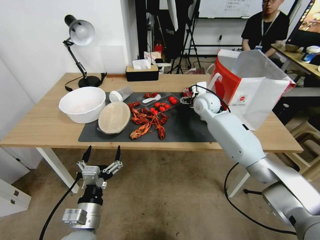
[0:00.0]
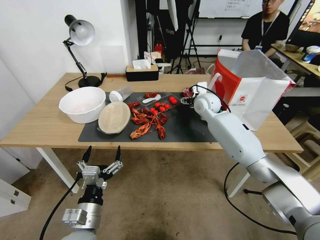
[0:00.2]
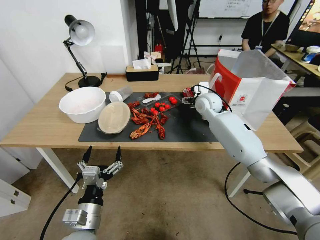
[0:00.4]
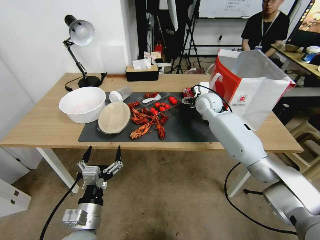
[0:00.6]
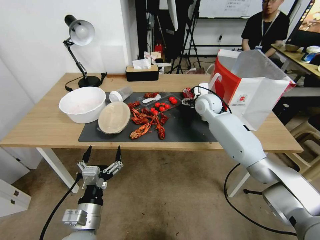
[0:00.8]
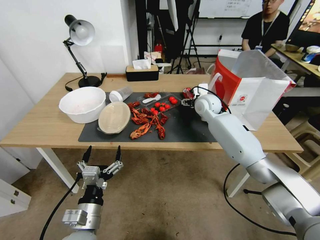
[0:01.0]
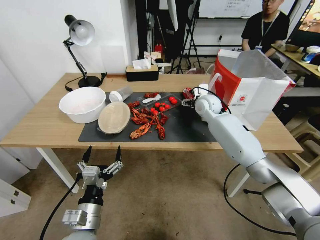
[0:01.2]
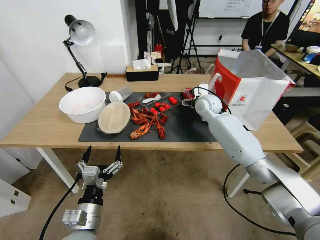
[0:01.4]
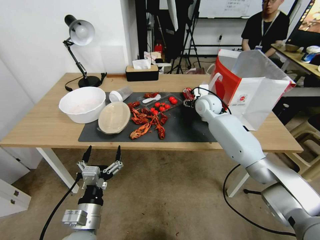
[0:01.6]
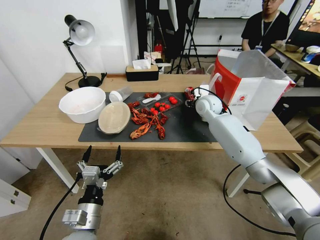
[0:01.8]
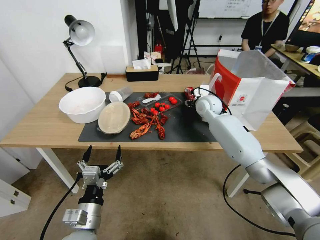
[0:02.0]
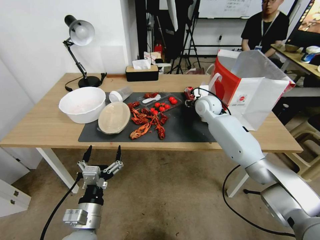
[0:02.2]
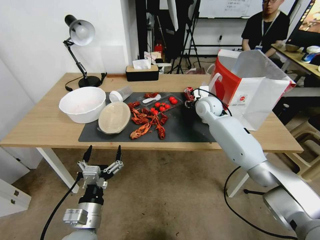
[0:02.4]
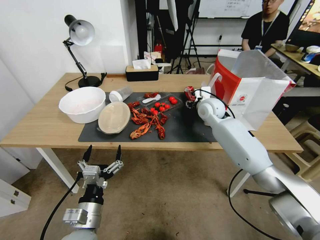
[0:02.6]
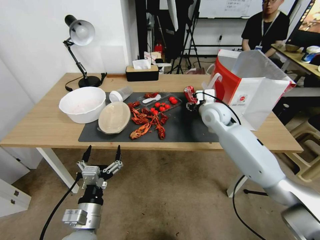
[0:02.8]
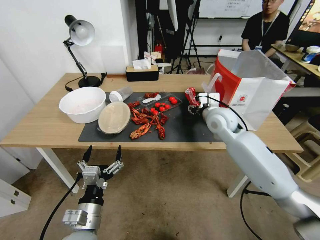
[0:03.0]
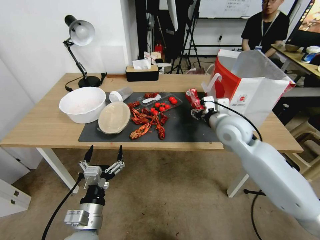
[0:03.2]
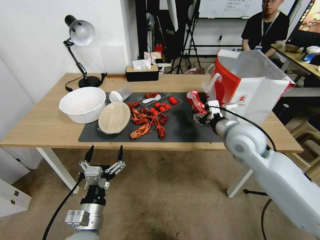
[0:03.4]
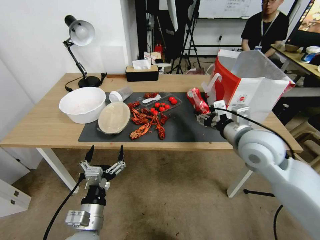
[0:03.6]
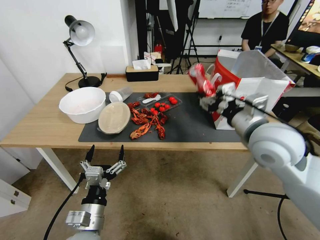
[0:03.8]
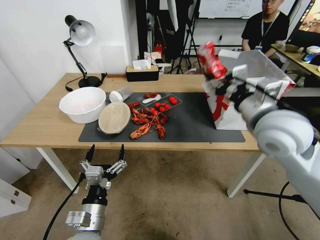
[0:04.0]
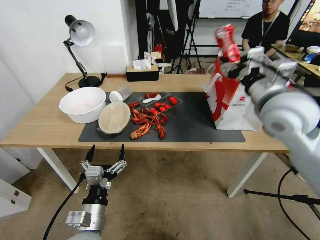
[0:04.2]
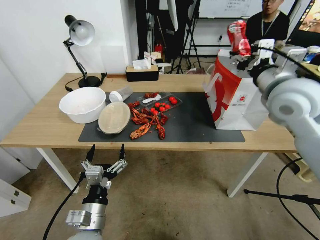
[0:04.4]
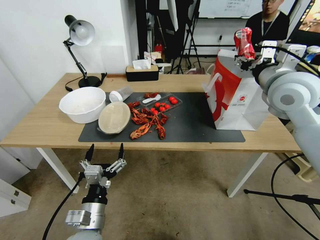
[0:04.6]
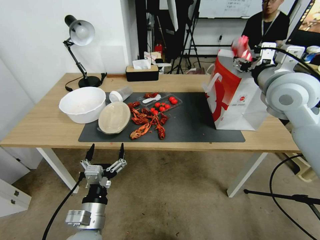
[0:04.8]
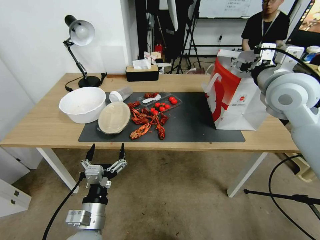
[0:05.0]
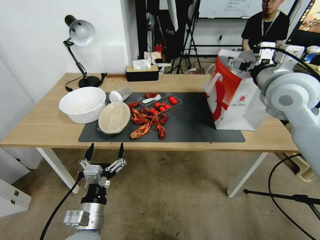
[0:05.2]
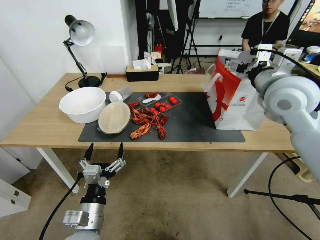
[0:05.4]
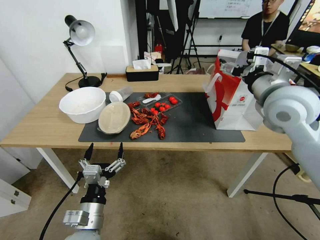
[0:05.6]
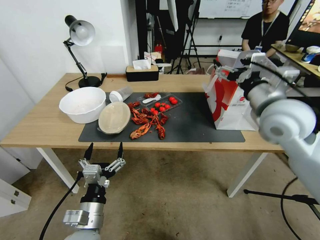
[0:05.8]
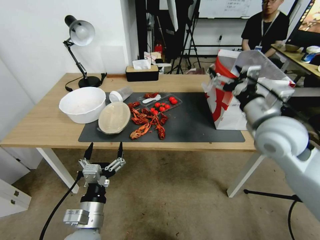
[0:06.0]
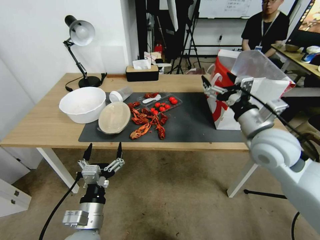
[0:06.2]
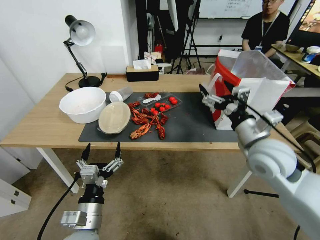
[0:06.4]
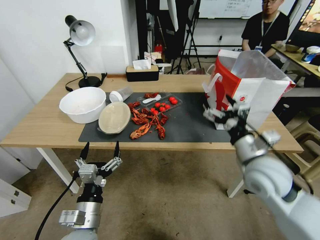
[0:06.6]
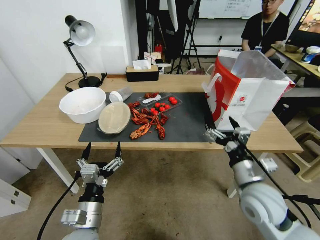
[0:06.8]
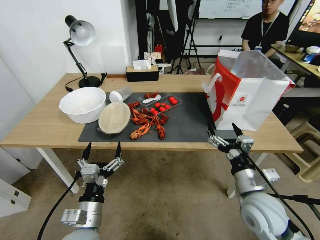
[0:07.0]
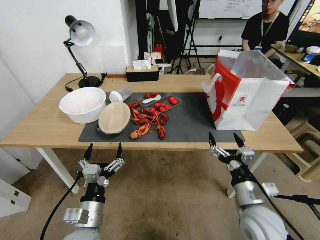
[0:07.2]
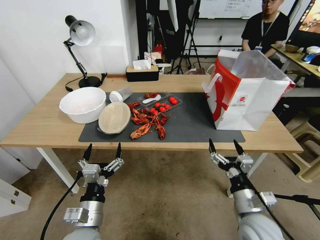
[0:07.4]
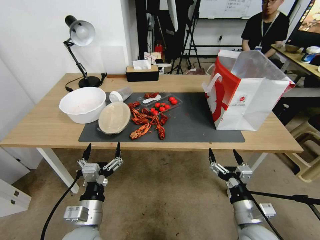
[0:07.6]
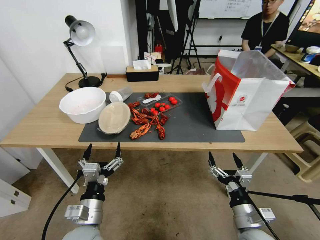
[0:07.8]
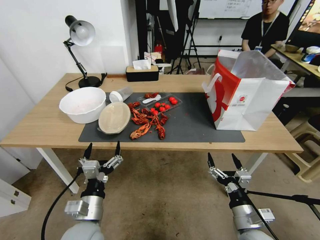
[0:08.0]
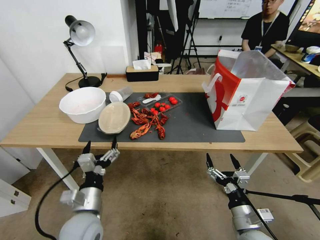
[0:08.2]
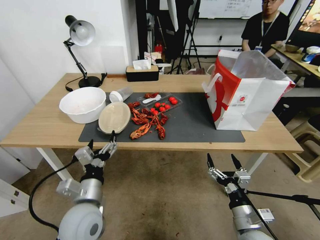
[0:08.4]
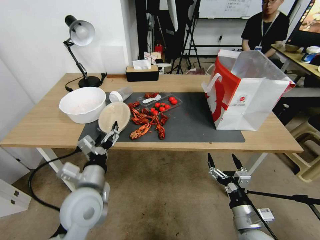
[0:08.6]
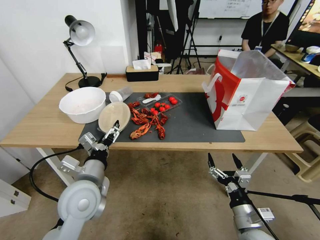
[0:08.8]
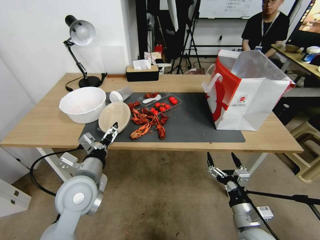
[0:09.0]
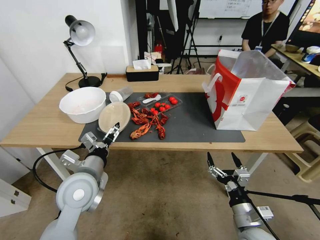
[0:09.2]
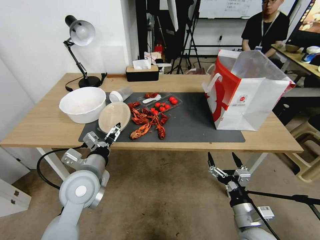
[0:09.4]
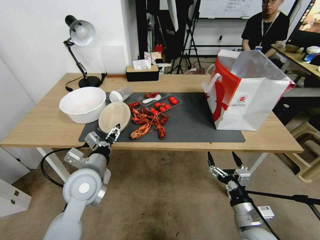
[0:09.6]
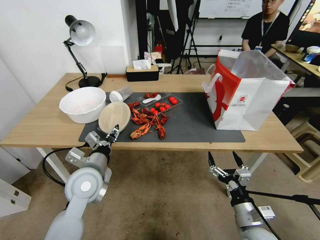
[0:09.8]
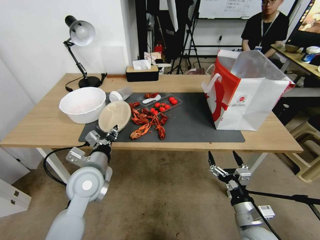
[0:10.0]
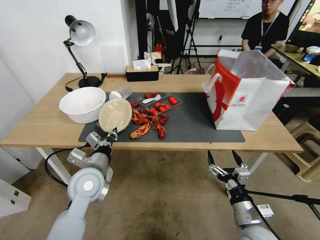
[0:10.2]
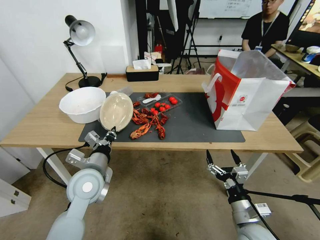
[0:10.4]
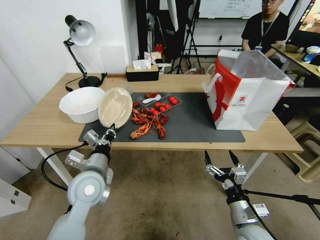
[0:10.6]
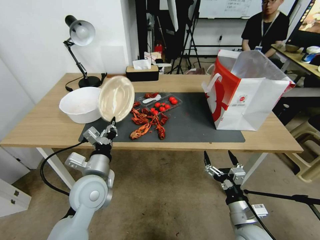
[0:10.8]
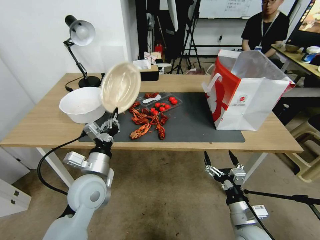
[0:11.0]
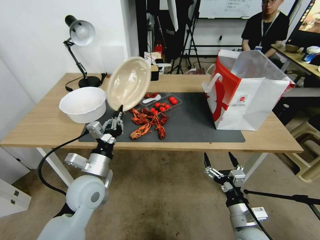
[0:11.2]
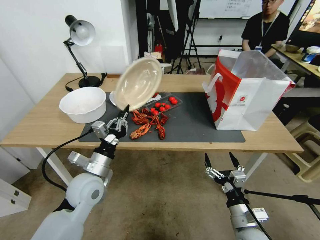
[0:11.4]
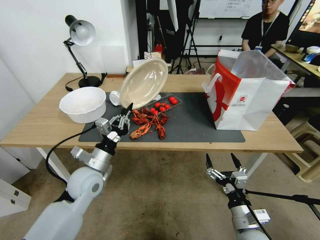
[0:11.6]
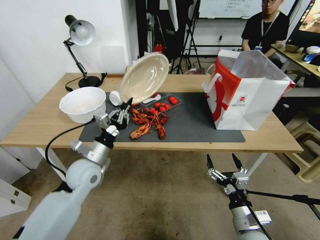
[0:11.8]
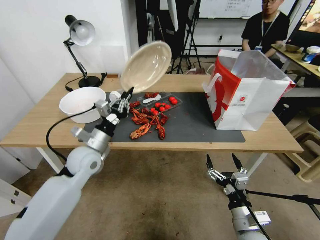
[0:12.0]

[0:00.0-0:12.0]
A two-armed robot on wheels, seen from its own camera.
0:00.0 to 0:01.6: There are only small adjustments of the grippers.
0:01.6 to 0:03.0: The right gripper travels backward by approximately 10 cm.
0:03.0 to 0:04.4: The right gripper shifts about 20 cm upward, to the right and backward.
0:04.4 to 0:06.0: The right gripper moves downward, roughly 10 cm, and opens.
0:06.0 to 0:07.6: The right gripper shifts about 25 cm downward and backward.
0:07.6 to 0:09.0: The right gripper shifts some 5 cm downward; the left gripper goes about 15 cm forward and upward.
0:09.0 to 0:10.4: The left gripper closes up.
0:10.4 to 0:12.0: The left gripper moves forward, about 5 cm.

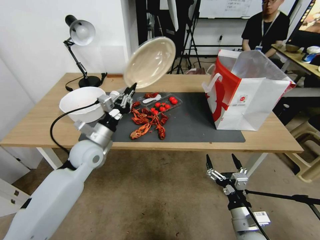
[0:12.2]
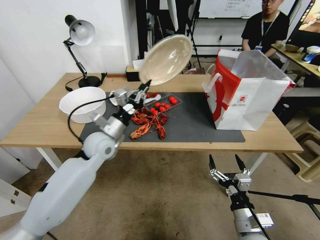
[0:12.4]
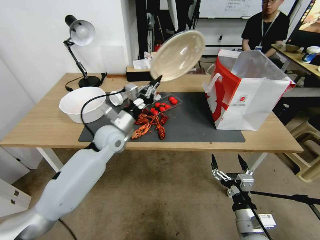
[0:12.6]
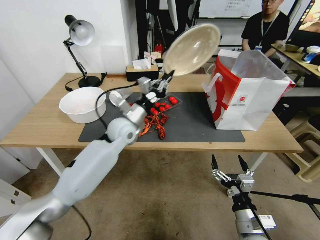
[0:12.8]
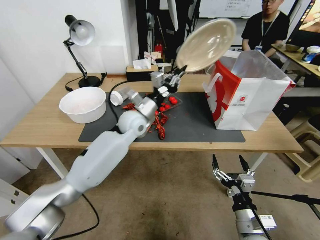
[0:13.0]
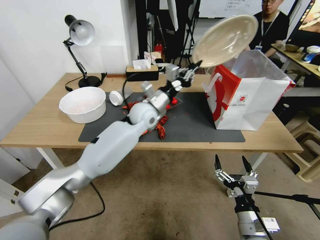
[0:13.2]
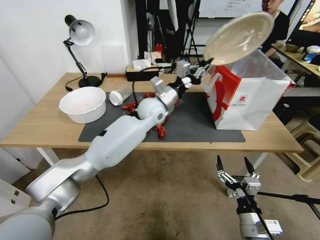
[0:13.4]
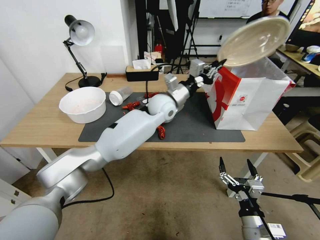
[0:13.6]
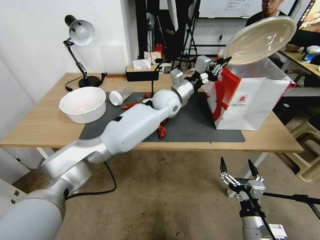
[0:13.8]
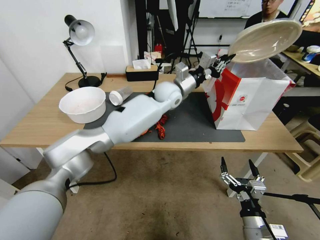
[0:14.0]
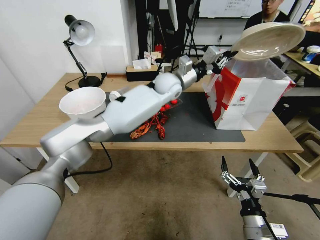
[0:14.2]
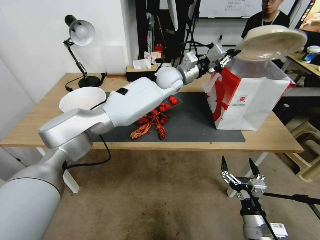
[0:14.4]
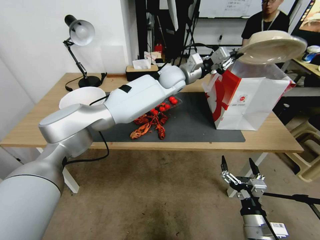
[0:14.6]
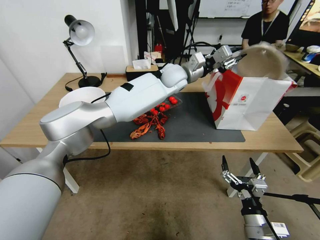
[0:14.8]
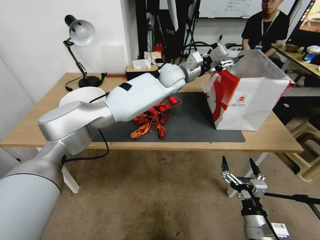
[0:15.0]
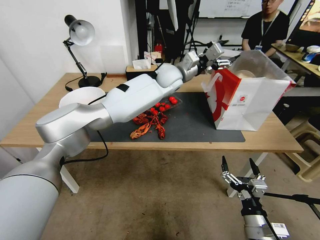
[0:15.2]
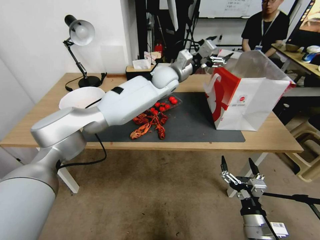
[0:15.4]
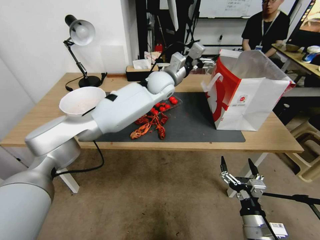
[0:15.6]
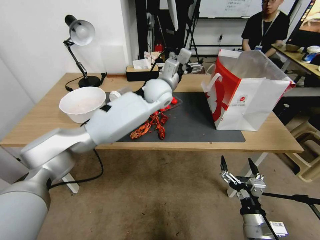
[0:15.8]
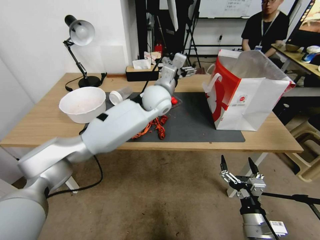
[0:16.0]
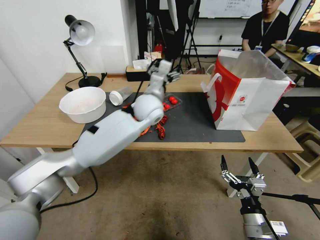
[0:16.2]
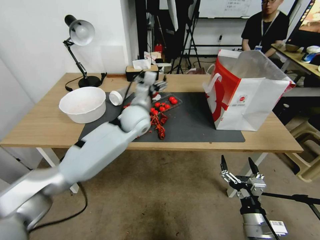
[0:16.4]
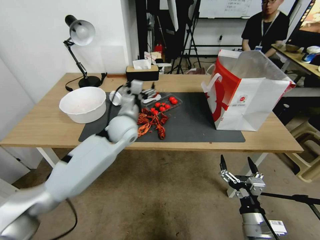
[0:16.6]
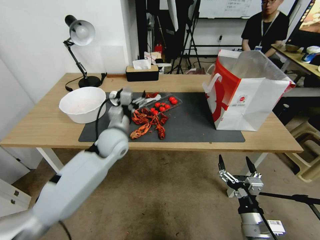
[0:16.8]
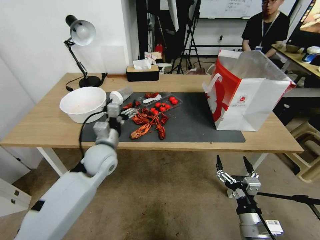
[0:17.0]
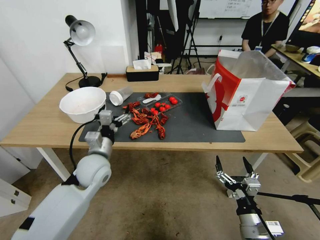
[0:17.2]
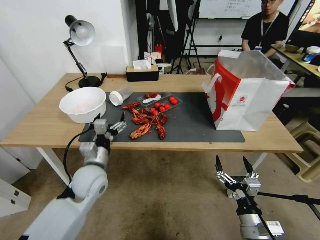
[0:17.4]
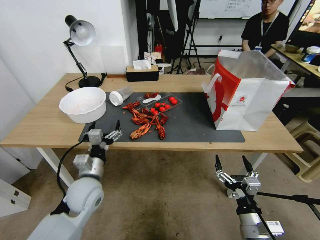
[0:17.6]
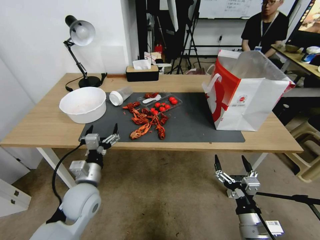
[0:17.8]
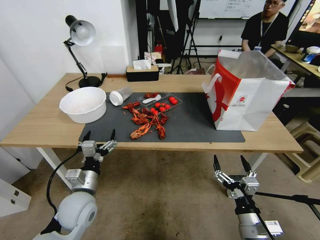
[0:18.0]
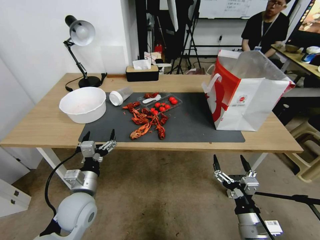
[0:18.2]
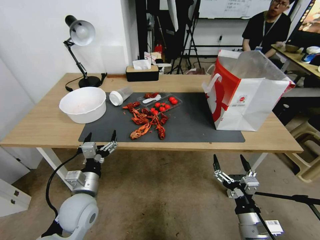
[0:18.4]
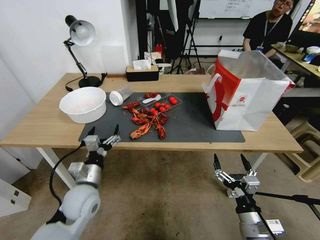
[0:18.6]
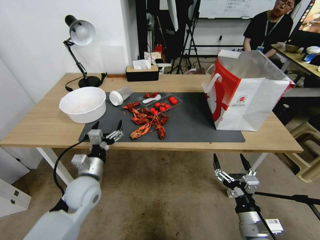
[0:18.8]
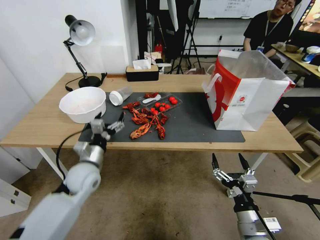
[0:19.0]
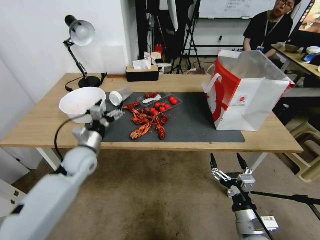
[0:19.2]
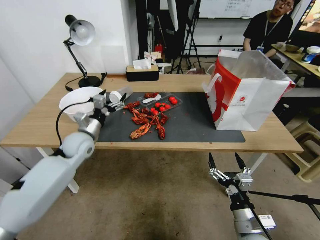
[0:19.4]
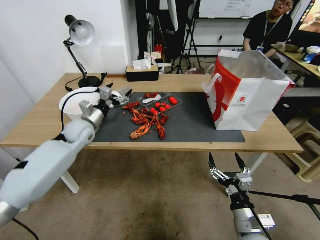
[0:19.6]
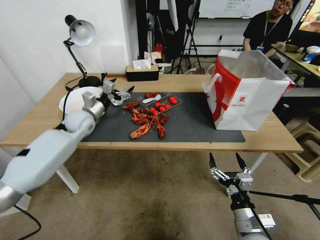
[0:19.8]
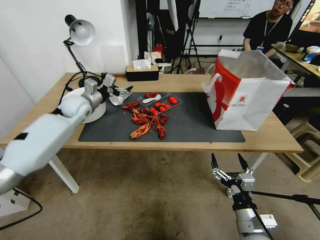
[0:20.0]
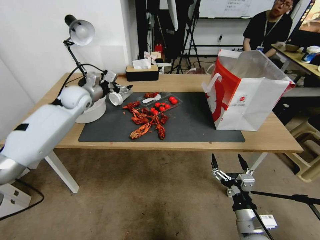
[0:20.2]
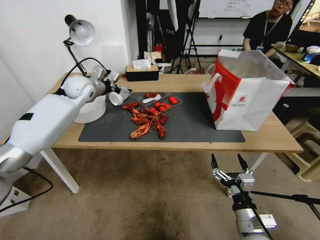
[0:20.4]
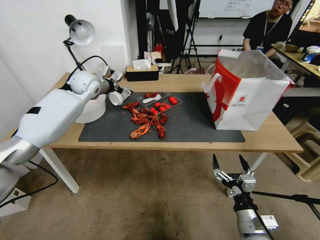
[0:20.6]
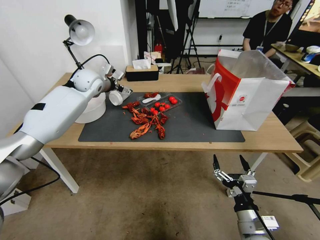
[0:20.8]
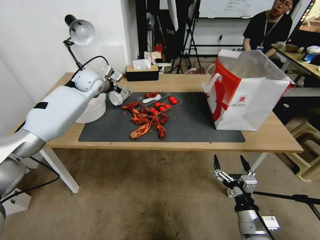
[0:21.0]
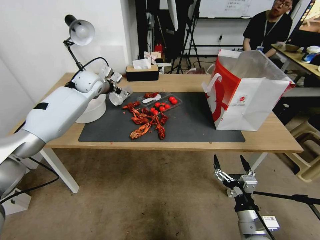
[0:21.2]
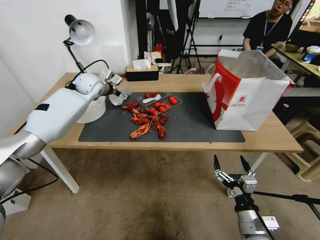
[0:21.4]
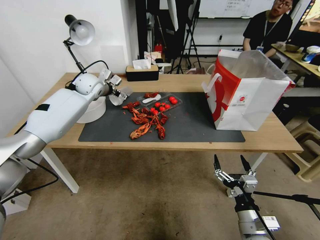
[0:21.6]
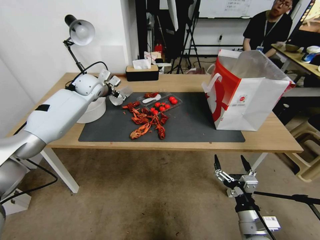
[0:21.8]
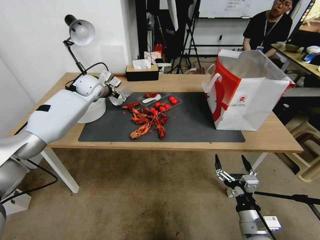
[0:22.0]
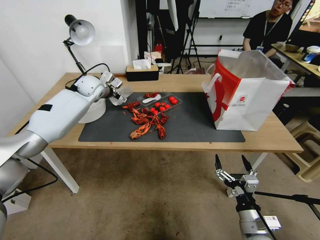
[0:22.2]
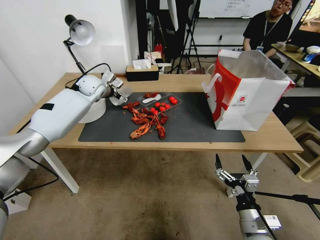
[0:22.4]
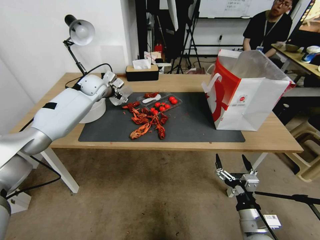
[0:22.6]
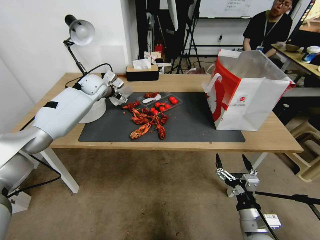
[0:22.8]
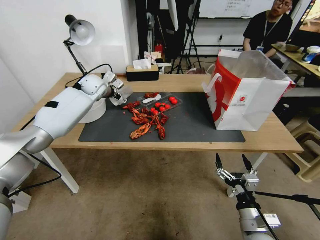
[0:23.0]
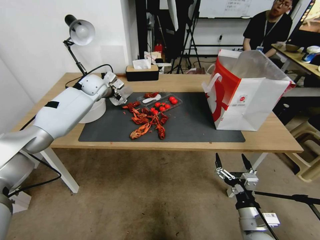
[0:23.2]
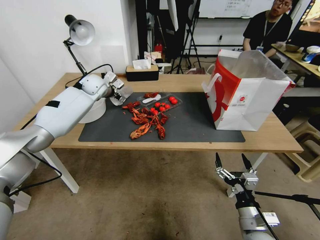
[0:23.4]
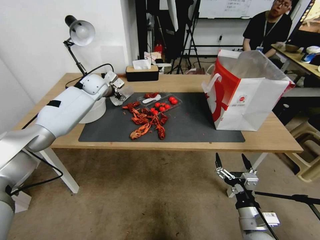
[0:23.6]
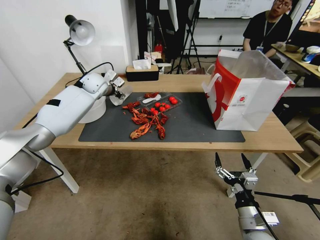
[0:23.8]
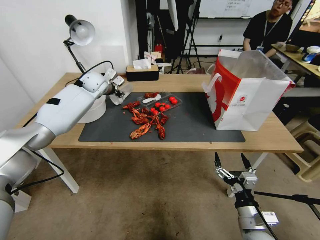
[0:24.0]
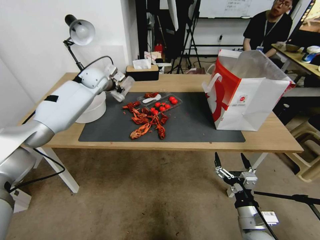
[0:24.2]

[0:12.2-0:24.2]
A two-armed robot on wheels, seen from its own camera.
0:12.2 to 0:13.8: The left gripper heads to the right and forward, covering approximately 30 cm.
0:13.8 to 0:15.2: The left gripper heads upward and forward, covering approximately 10 cm, and opens up.
0:15.2 to 0:16.6: The left gripper travels to the left, backward and downward by approximately 25 cm.
0:16.6 to 0:18.2: The left gripper is displaced backward, downward and to the left by roughly 25 cm.
0:18.2 to 0:19.8: The left gripper is displaced forward by some 25 cm.
0:19.8 to 0:21.2: The left gripper moves forward and upward, about 15 cm.
0:21.2 to 0:22.6: There are only small adjustments of the grippers.
0:22.6 to 0:24.2: The left gripper closes up.
